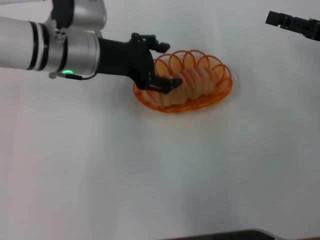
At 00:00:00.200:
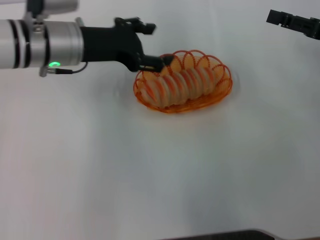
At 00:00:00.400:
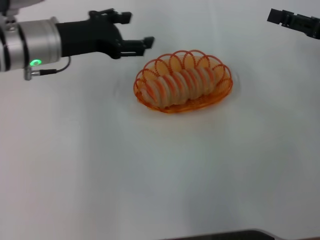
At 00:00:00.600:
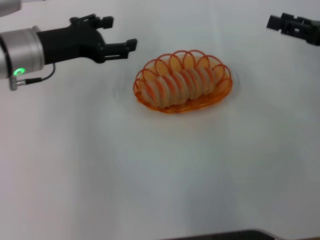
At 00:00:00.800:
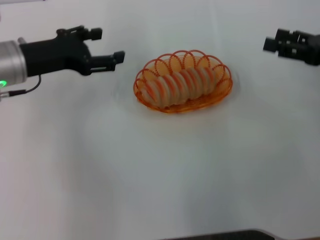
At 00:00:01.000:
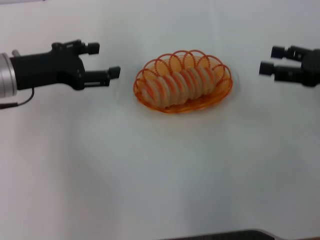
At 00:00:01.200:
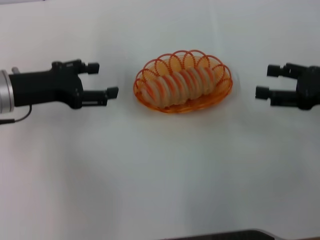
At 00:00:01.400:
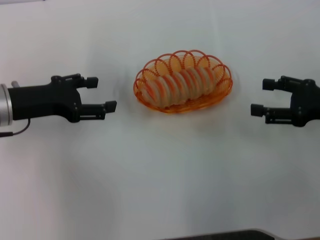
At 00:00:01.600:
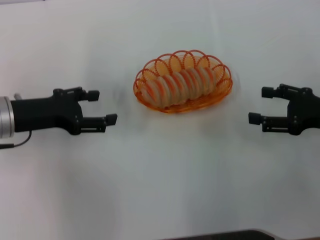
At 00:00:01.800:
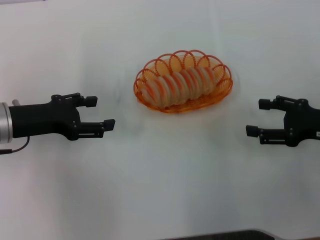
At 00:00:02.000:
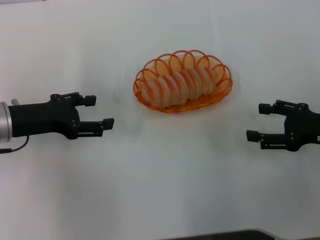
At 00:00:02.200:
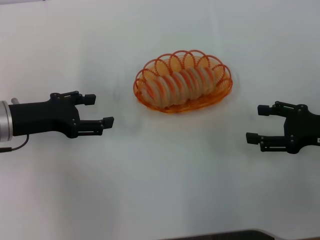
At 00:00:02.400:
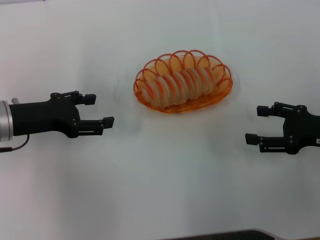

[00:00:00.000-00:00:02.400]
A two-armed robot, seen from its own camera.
00:00:00.000 to 00:00:01.200: The right gripper moves about 5 cm. Meanwhile the left gripper heads to the left, covering roughly 10 cm.
00:00:01.200 to 00:00:02.400: The right gripper moves some 5 cm.
